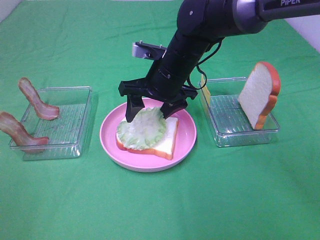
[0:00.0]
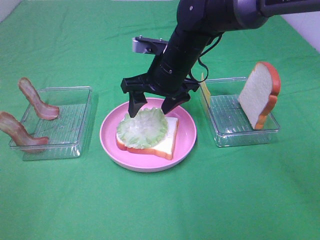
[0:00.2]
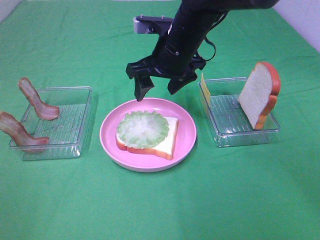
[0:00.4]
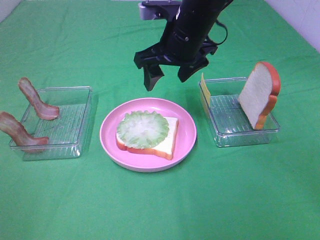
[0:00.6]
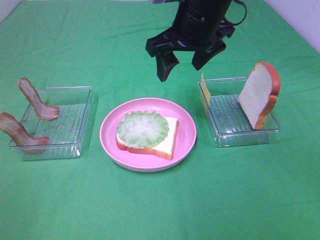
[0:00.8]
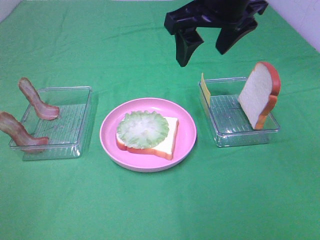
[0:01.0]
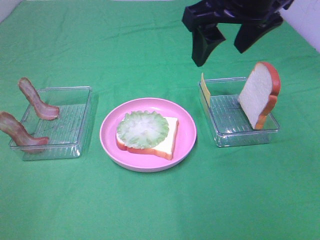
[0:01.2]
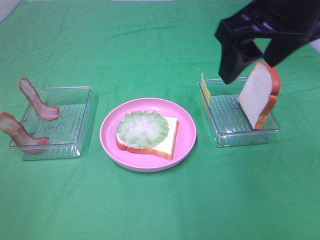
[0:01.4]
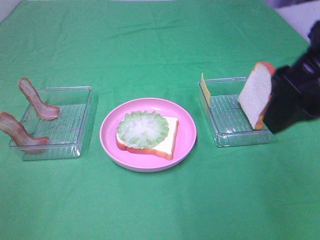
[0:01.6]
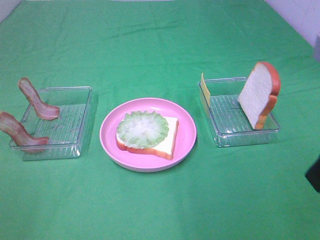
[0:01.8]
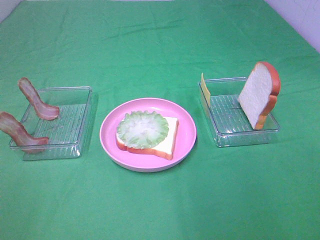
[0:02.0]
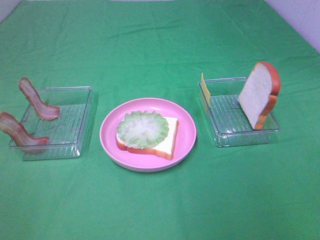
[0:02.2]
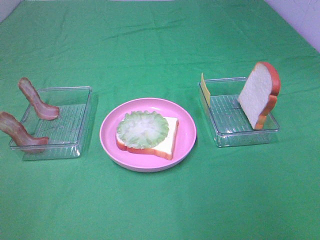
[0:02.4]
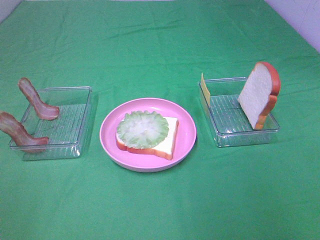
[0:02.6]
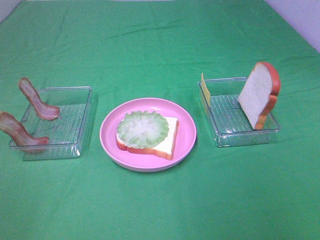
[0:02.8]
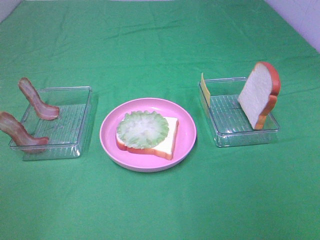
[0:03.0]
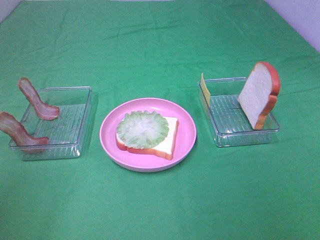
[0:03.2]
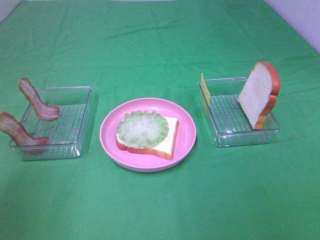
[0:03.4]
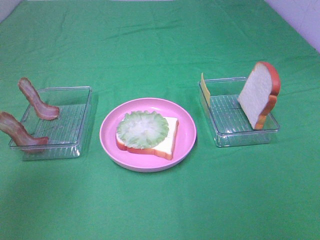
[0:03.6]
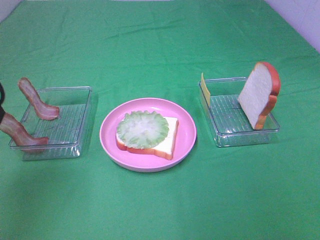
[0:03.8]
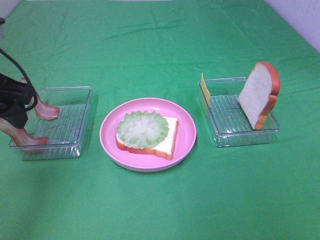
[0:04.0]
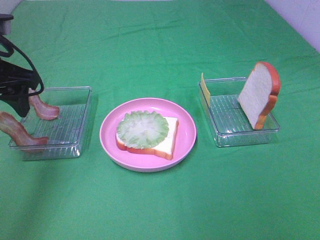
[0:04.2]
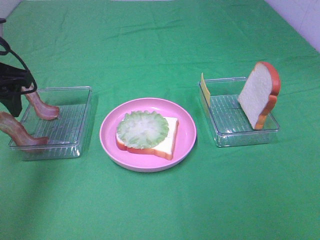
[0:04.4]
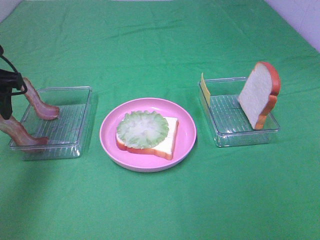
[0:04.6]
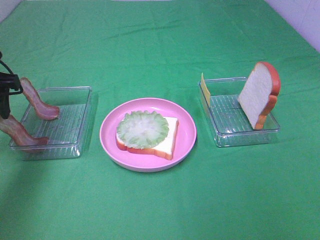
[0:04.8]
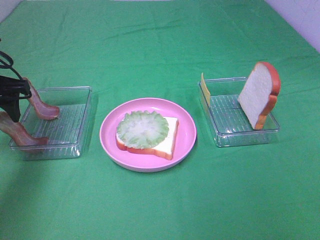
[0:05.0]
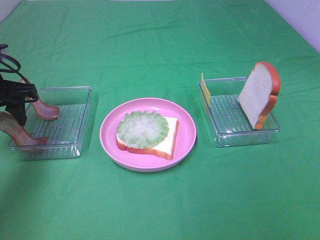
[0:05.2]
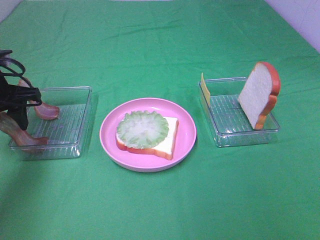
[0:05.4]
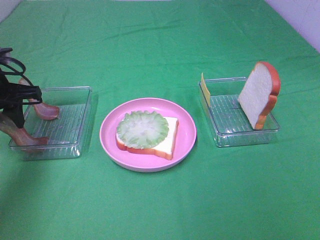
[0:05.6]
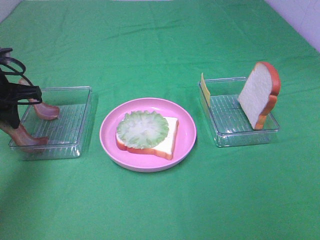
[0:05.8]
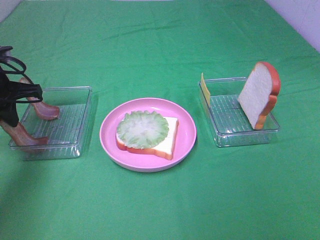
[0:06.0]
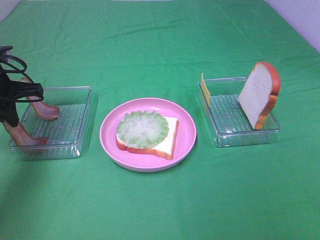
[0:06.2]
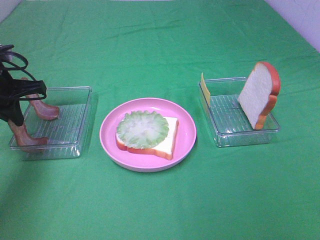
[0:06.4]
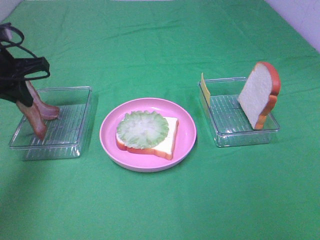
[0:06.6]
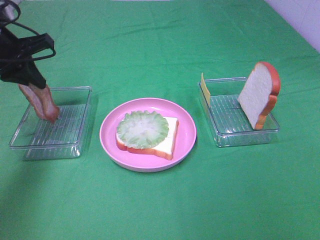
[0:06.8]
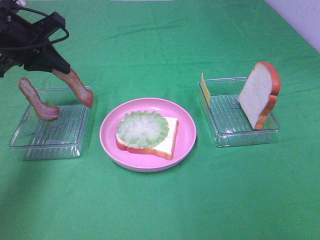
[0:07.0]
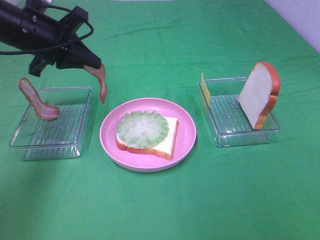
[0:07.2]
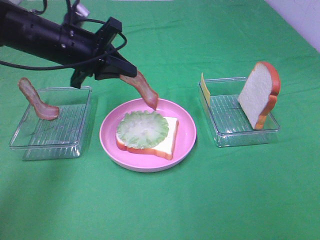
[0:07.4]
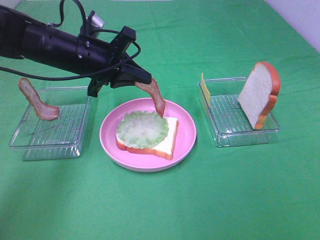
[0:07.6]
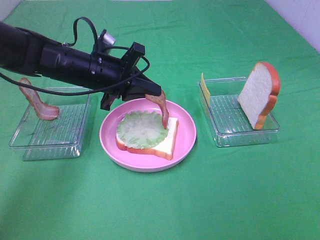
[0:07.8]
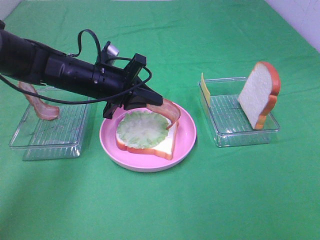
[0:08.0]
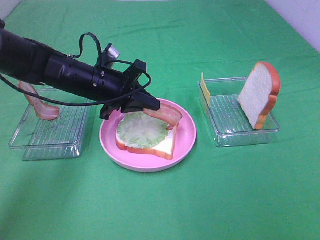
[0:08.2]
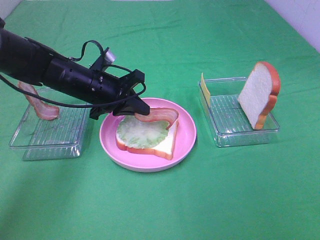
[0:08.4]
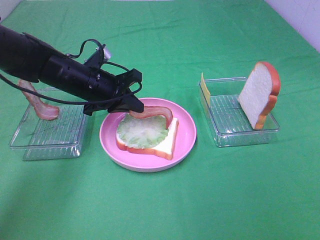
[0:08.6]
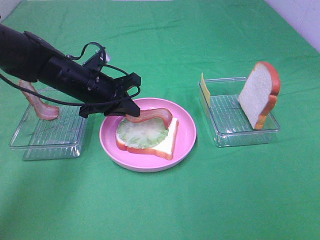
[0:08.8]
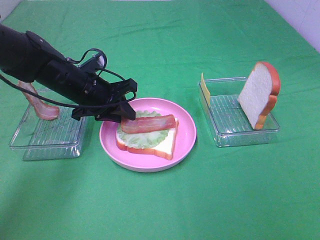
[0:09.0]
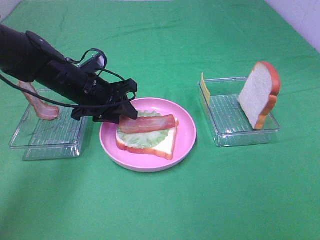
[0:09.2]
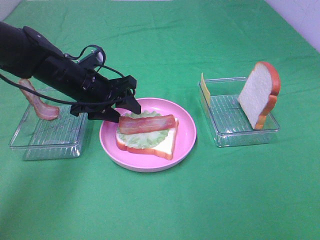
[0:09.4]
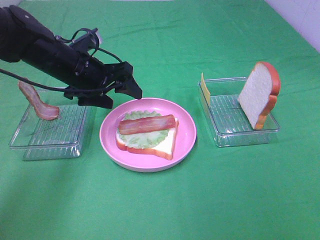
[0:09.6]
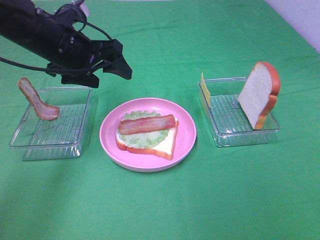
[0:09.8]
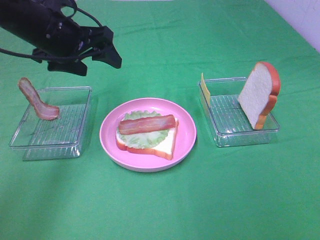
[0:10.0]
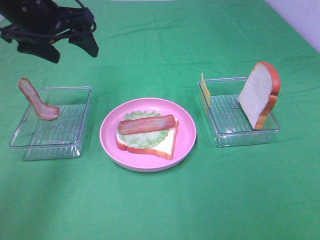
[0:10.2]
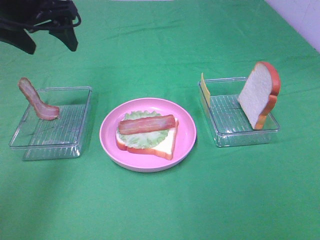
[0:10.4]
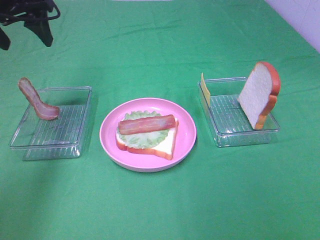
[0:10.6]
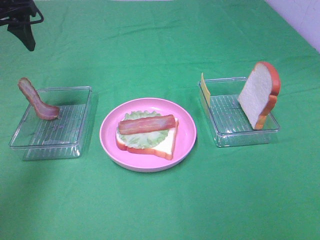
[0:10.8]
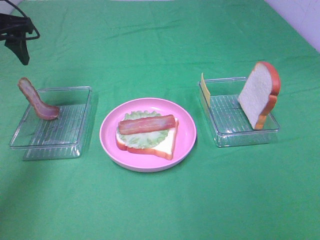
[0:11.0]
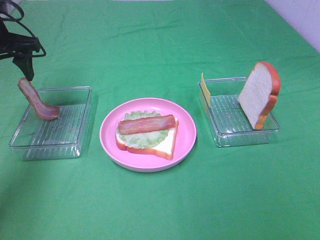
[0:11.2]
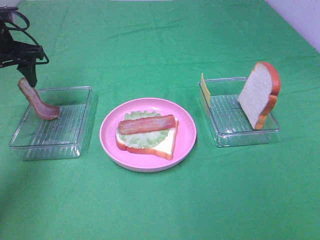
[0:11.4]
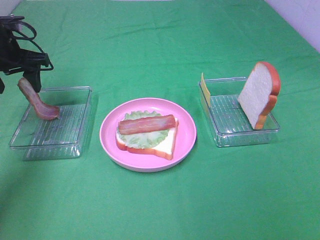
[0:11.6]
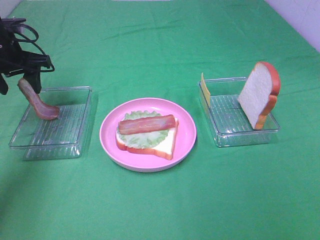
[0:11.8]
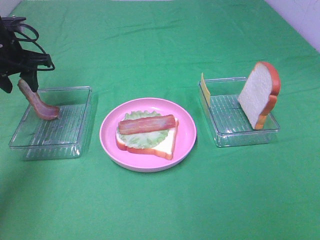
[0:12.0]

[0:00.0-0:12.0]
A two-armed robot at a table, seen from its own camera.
Task of the whole recording: Make sandwiches.
Step, 0:00.6 to 0:06.4: Left hand:grab the bacon.
Step, 0:06.6 to 0:09.8: Left hand:place bacon on lettuce slice.
0:00.0 to 0:01.6: The right gripper heads backward, upward and to the right, covering some 30 cm.
0:01.6 to 0:03.0: The right gripper is displaced backward and to the right by approximately 20 cm.
0:03.0 to 0:04.4: The left gripper goes about 30 cm forward.
0:04.4 to 0:06.0: The left gripper goes roughly 5 cm downward, and closes.
0:06.0 to 0:07.6: The left gripper heads to the right, covering about 15 cm.
0:07.6 to 0:09.0: The left gripper goes about 5 cm downward, and opens its fingers.
0:09.0 to 0:10.4: The left gripper is displaced upward by approximately 20 cm, and opens.
0:10.4 to 0:12.0: The left gripper heads downward, to the left and forward, covering some 15 cm.

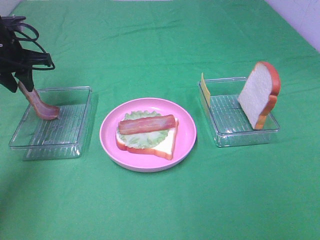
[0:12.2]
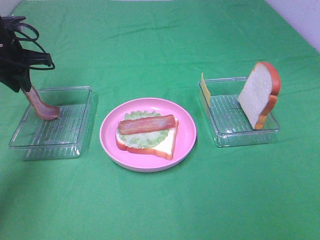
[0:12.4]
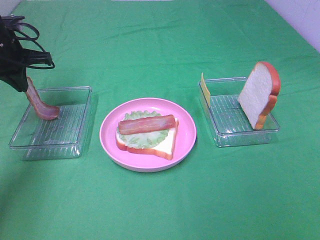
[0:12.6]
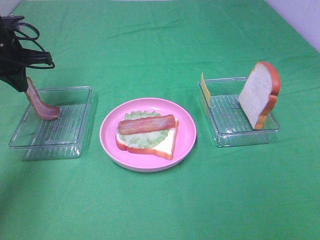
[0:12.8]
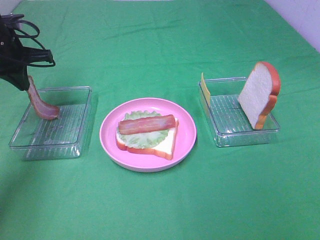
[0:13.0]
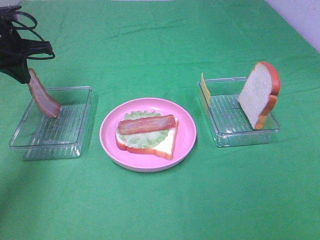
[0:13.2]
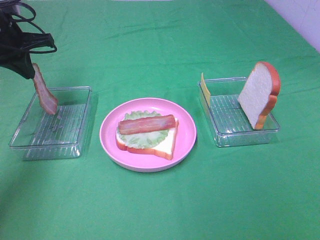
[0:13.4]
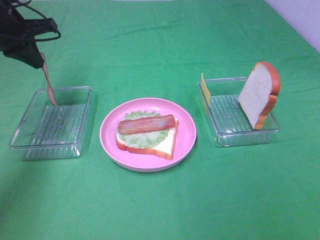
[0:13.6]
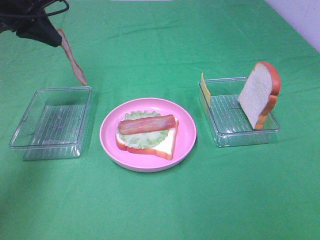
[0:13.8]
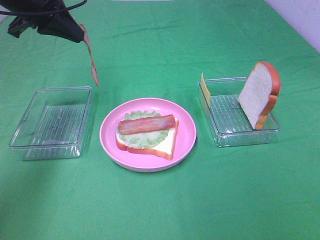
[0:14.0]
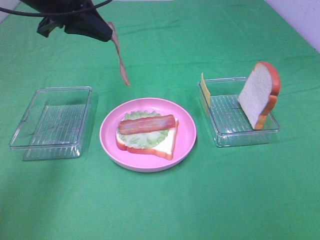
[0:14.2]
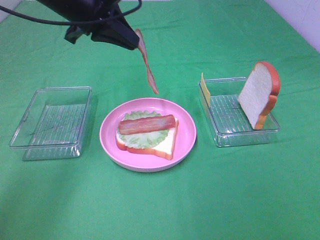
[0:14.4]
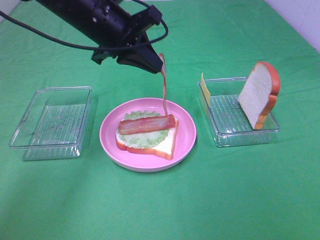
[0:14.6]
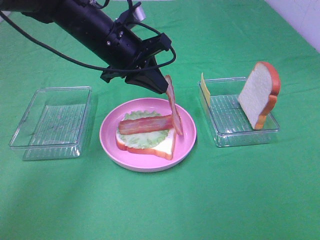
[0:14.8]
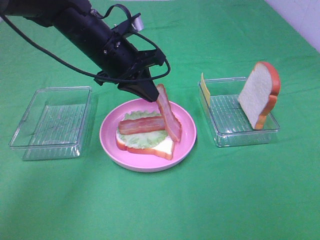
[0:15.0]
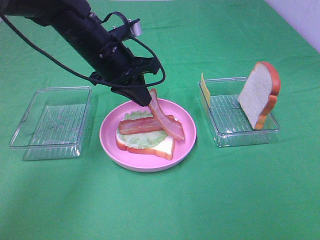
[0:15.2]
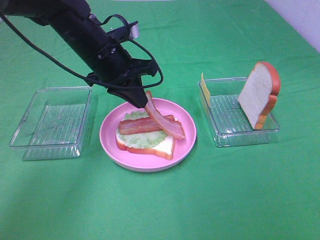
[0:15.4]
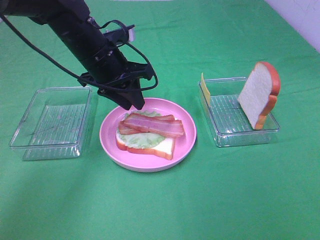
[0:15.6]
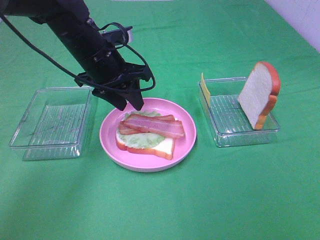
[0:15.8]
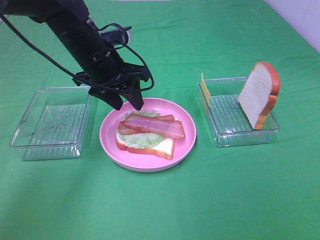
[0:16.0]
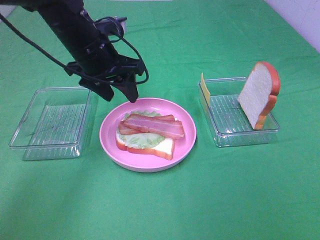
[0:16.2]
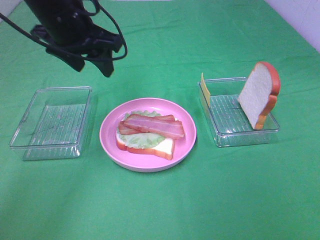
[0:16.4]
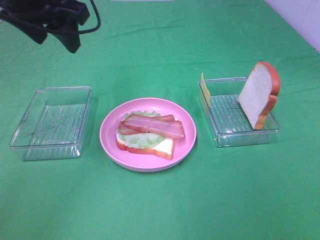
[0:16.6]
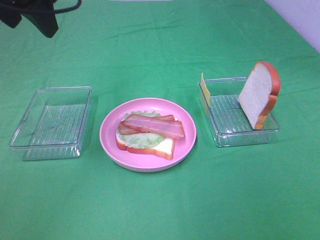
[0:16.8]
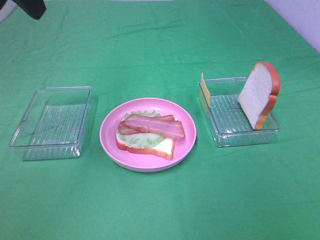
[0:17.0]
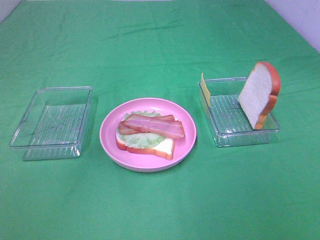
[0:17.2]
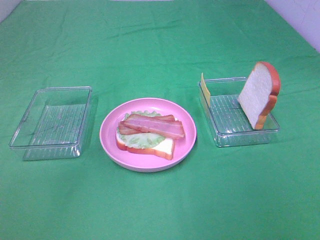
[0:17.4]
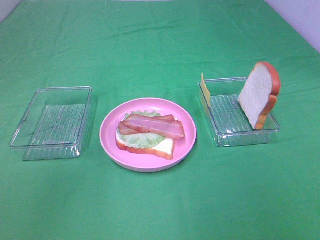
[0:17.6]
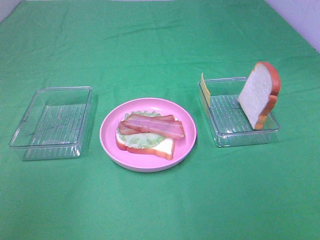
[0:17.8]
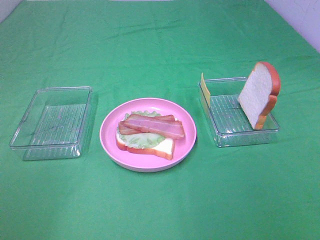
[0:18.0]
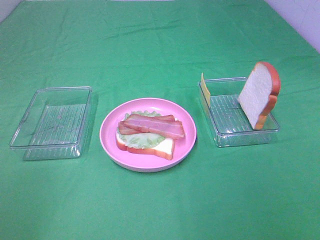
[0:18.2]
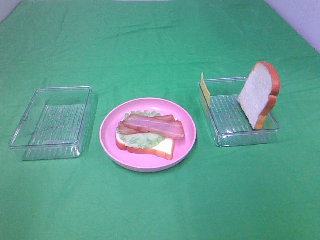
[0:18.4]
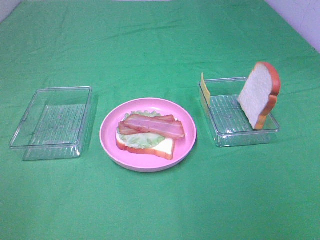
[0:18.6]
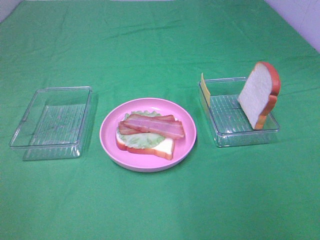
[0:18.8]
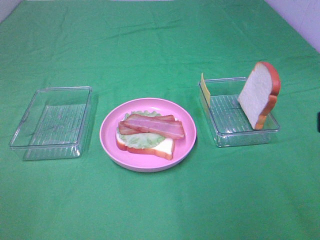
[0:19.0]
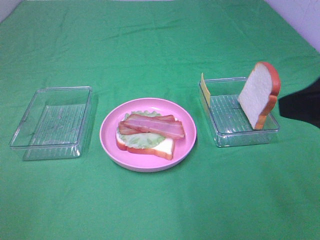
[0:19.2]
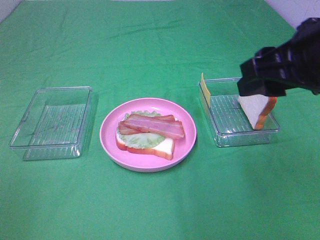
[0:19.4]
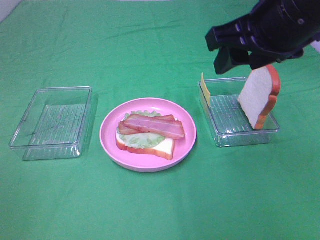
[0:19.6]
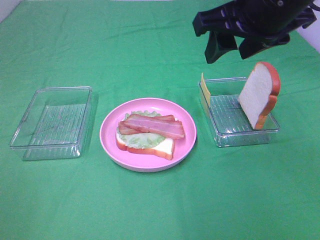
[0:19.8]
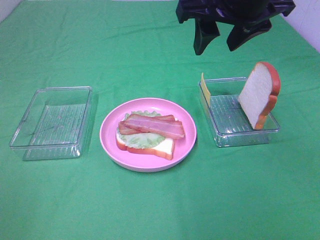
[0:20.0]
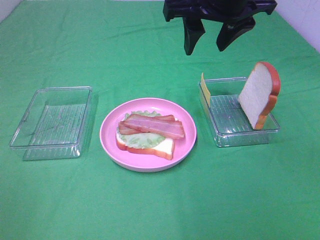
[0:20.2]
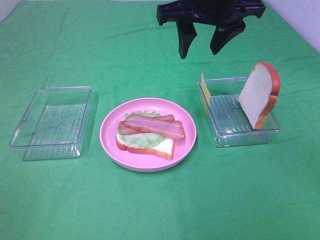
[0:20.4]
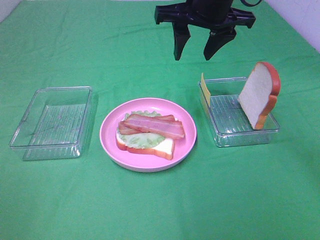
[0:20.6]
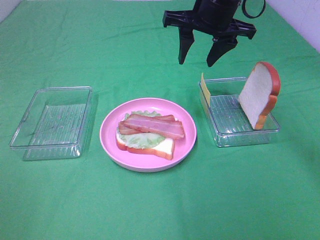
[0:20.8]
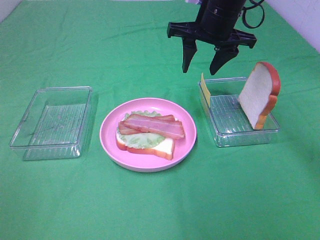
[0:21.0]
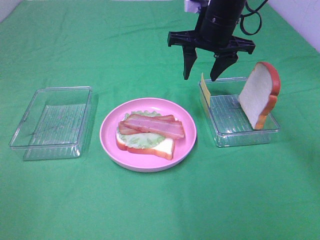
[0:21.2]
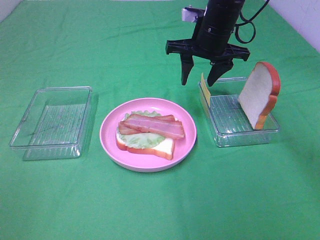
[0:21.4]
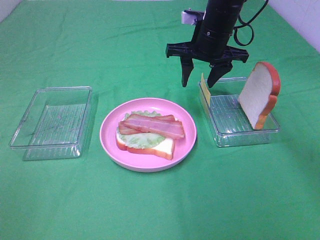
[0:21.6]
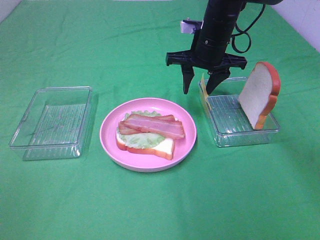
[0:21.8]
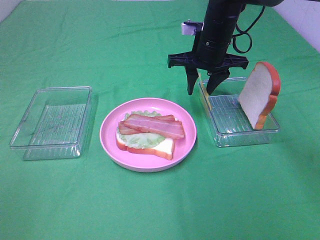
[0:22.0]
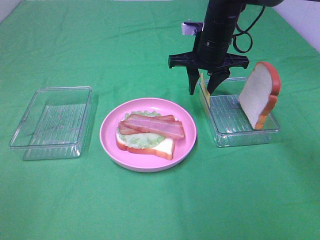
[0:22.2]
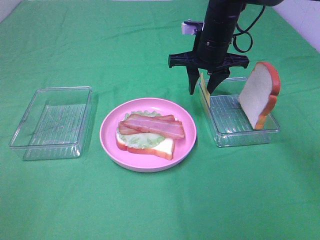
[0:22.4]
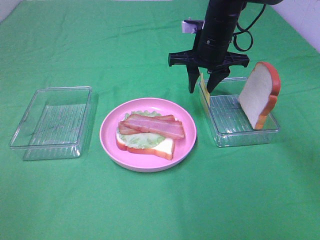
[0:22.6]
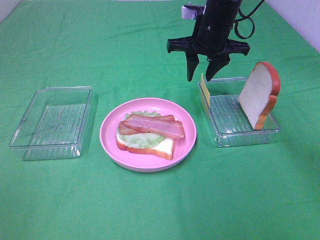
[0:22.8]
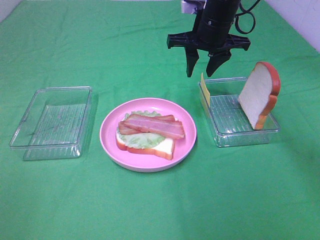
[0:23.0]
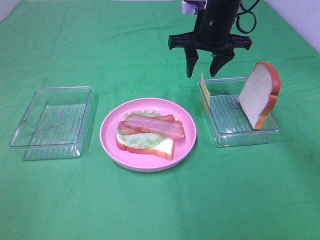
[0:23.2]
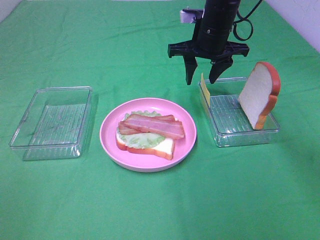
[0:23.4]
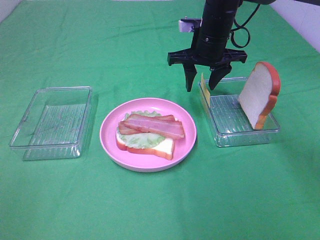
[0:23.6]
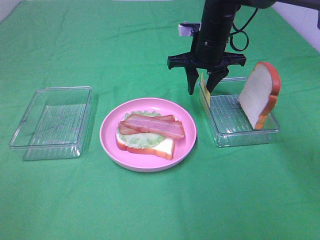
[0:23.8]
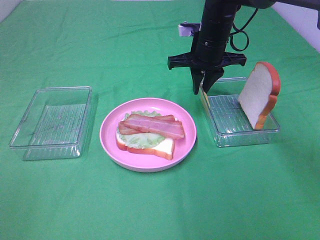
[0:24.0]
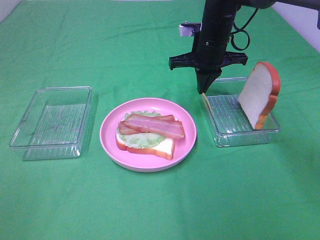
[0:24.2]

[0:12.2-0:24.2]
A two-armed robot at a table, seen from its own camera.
Task of the whole recording: Make sandwiches.
Step, 0:13.0 to 0:16.2: Left hand:place bacon on bacon.
0:12.2 to 0:13.8: The left gripper shifts about 10 cm upward, and closes its fingers.
0:13.8 to 0:15.2: The left gripper moves to the right and downward, roughly 20 cm.
0:15.2 to 0:16.6: The left gripper travels upward and to the left by roughly 15 cm, and opens up.
0:16.6 to 0:18.2: The left gripper shifts approximately 30 cm backward and to the left.
0:18.2 to 0:19.8: The left gripper ends up some 5 cm from where it was; the right gripper is displaced forward and to the left by some 35 cm.
0:19.8 to 0:21.2: The right gripper travels forward and downward by some 15 cm.
0:21.2 to 0:22.6: The grippers make only small movements.
0:22.6 to 0:24.2: The right gripper closes its fingers.
